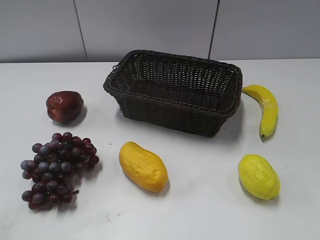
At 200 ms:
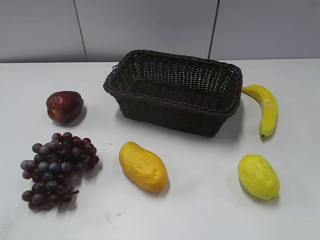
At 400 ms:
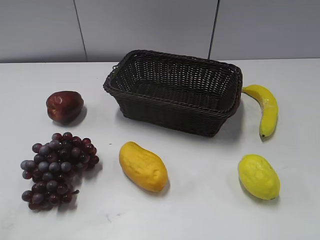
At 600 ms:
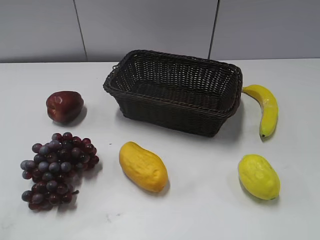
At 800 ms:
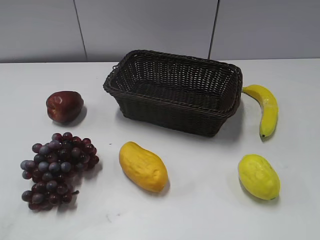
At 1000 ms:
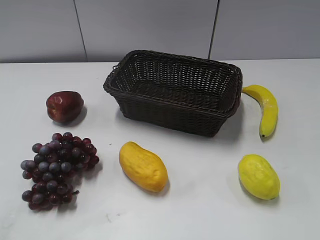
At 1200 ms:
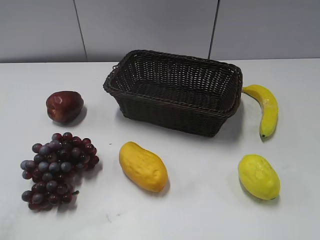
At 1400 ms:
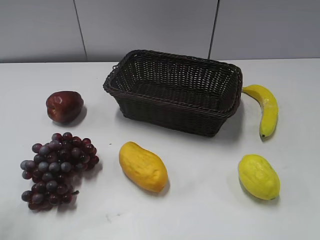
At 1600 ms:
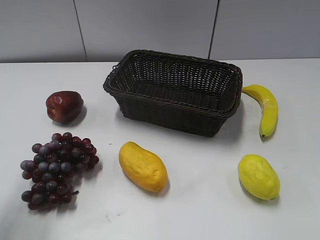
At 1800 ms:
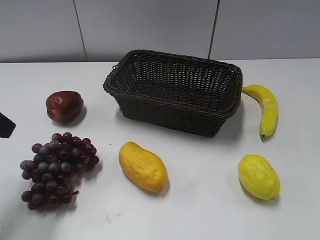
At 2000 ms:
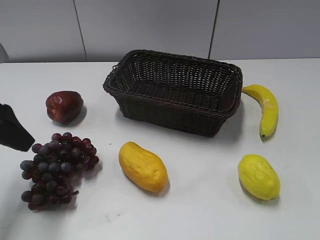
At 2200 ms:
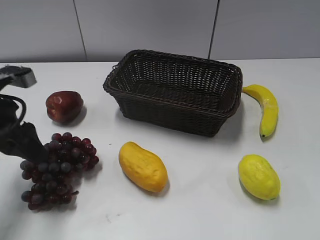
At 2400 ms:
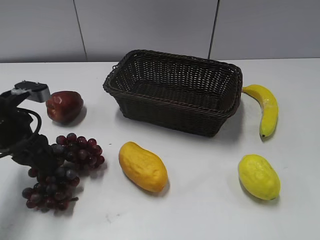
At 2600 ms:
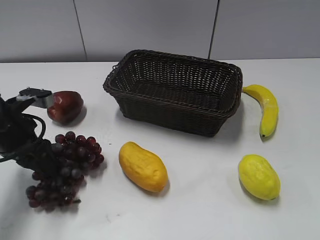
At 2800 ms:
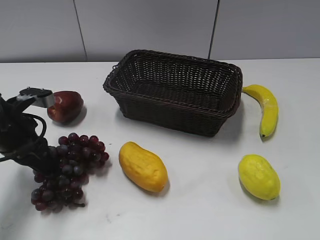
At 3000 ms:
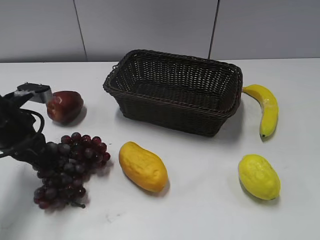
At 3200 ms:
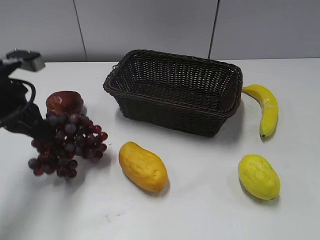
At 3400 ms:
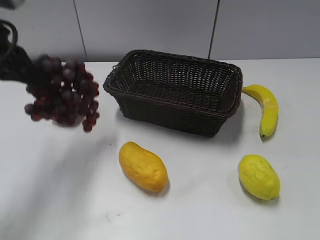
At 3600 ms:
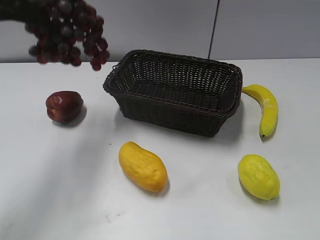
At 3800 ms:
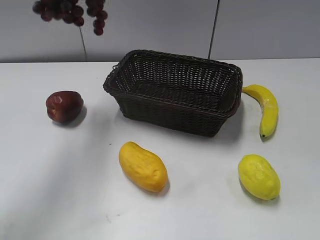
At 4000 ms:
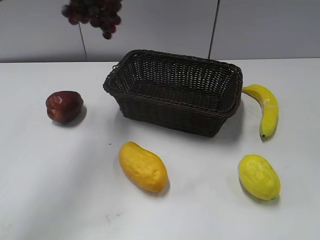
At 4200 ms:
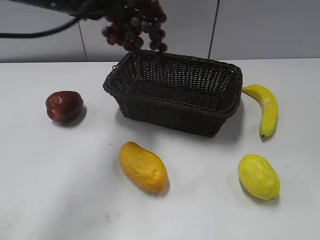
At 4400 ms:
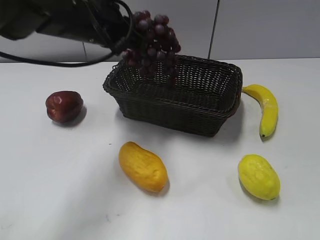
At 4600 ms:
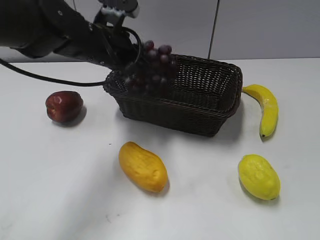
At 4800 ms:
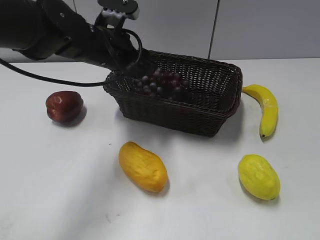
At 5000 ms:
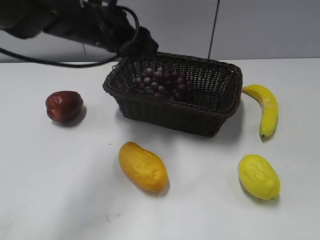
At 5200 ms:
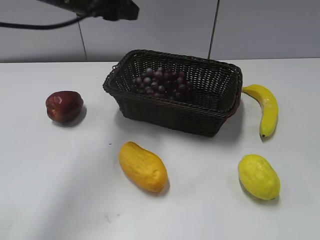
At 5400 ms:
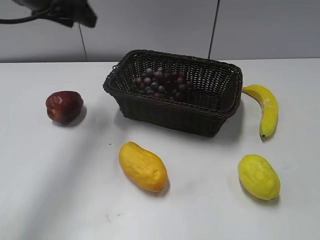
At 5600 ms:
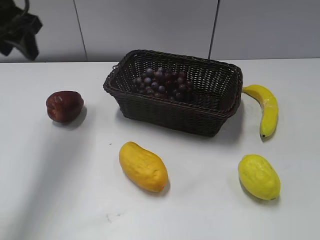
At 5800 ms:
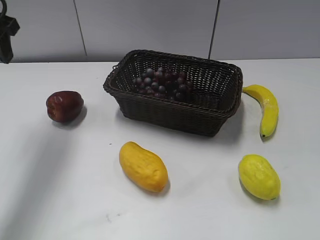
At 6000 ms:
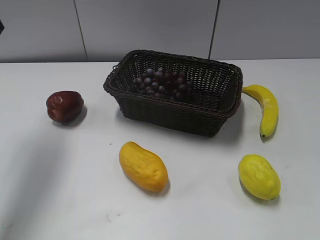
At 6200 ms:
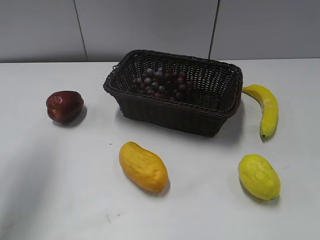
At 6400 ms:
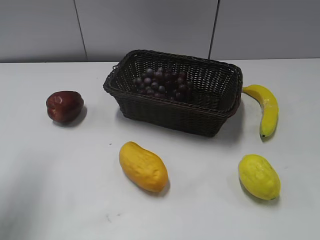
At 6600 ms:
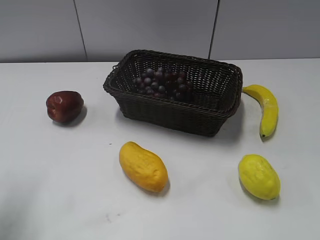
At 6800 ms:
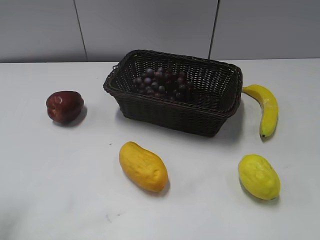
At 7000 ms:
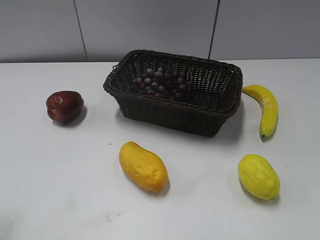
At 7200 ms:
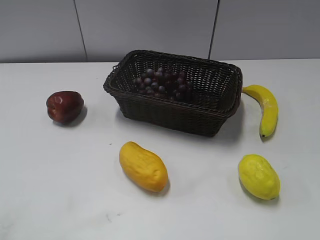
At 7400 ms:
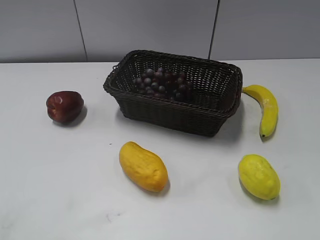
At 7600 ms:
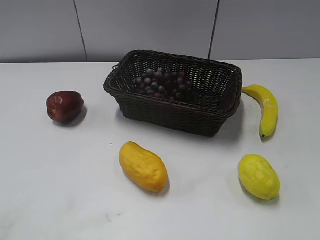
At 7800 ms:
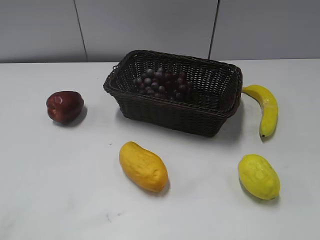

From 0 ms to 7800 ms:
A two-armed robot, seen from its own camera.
Step, from 1600 ms to 2600 ms: Grasp the grape with left gripper.
Step, from 2800 ms to 4800 ms: Place the grape in the basket with left gripper.
From 1600 ms to 3200 ms: The left gripper is displaced forward and downward by some 15 cm, and closes.
From 3200 ms to 4600 ms: The left gripper heads to the right and forward, covering about 15 cm, and reaches approximately 15 cm upward, then returns.
From 4600 ms to 6200 ms: The left gripper moves to the left, upward and backward, some 25 cm, and opens.
From 6200 ms to 7800 ms: The left gripper shifts roughly 30 cm backward.
